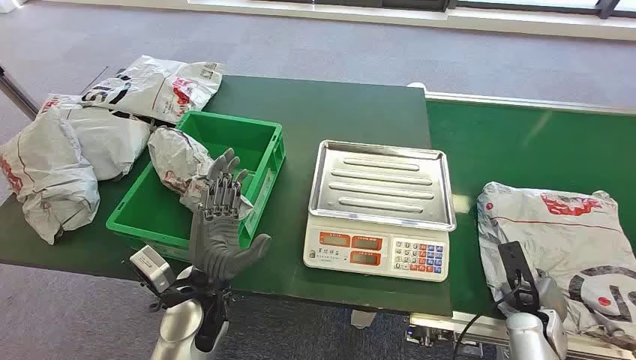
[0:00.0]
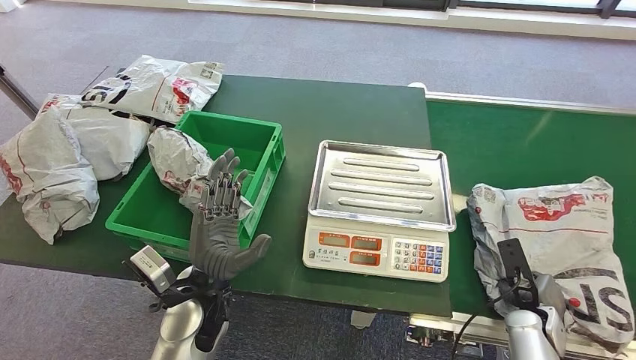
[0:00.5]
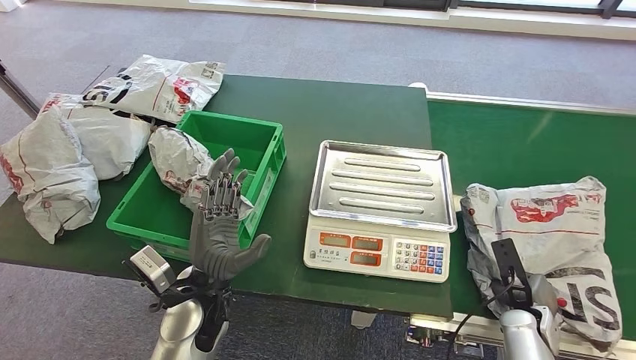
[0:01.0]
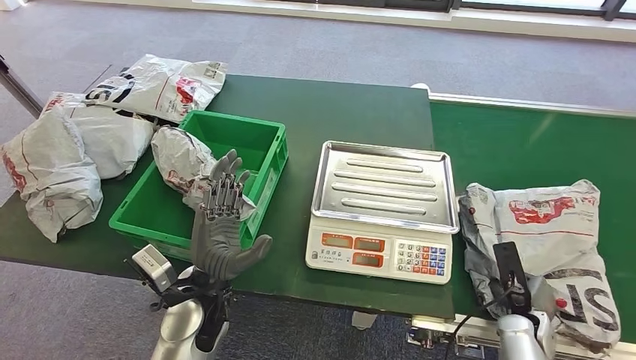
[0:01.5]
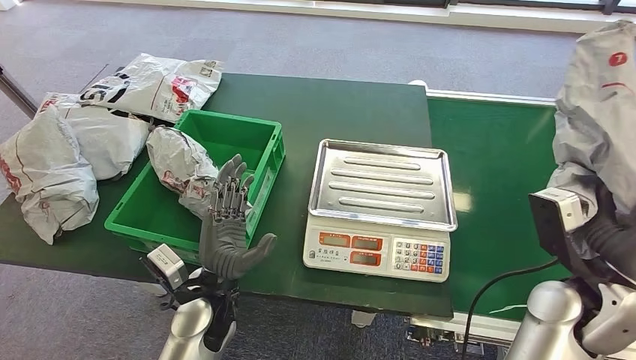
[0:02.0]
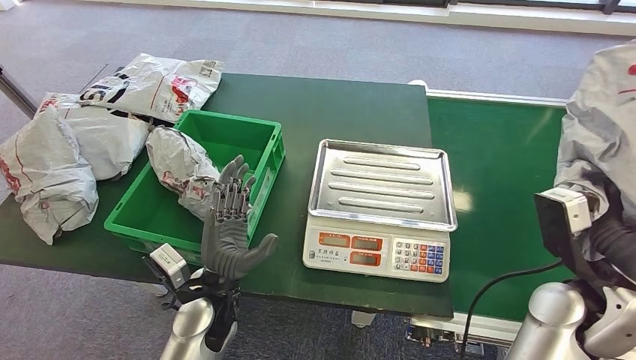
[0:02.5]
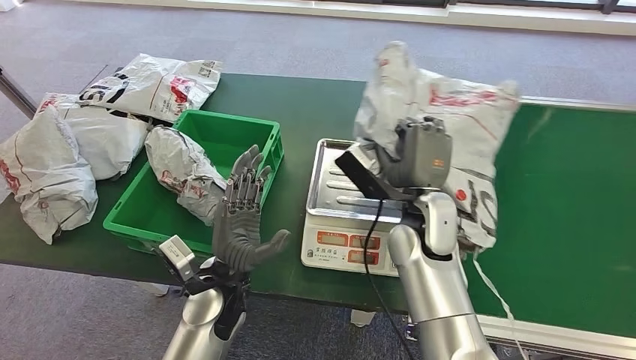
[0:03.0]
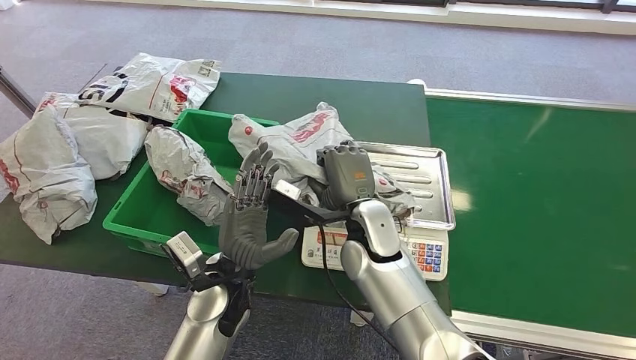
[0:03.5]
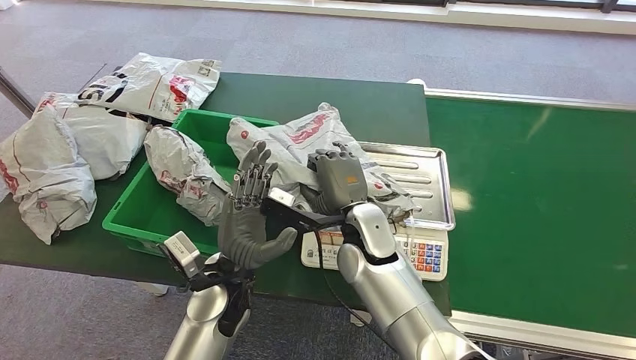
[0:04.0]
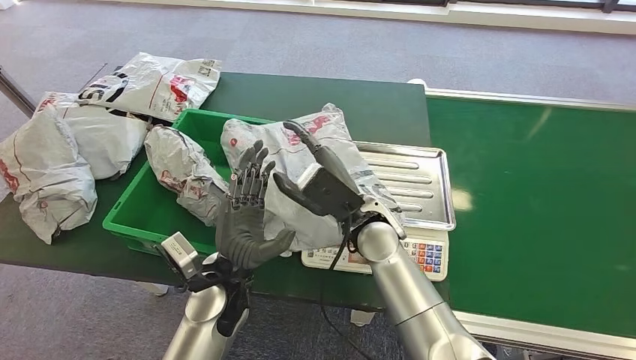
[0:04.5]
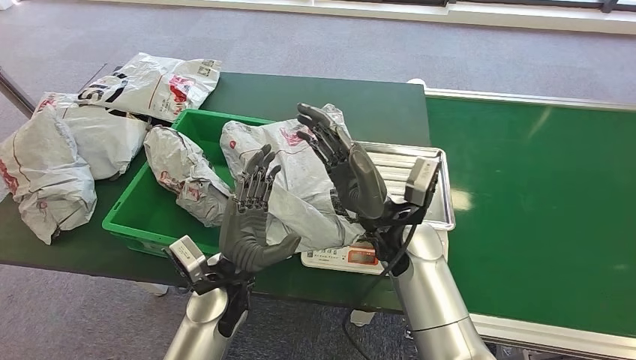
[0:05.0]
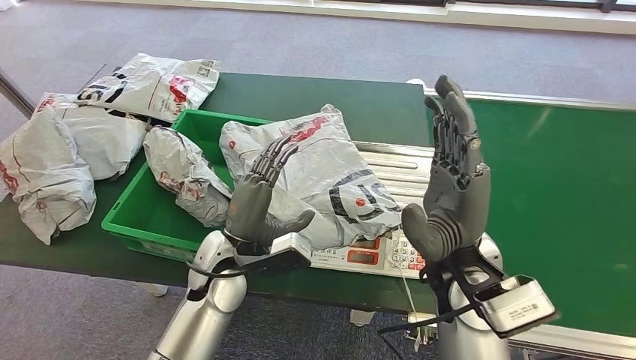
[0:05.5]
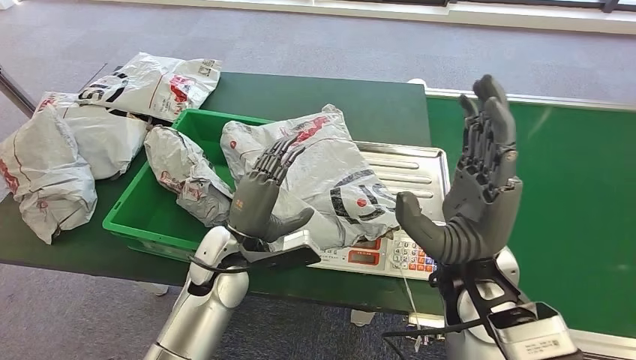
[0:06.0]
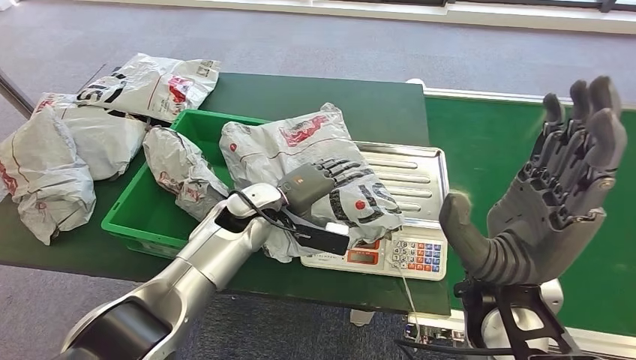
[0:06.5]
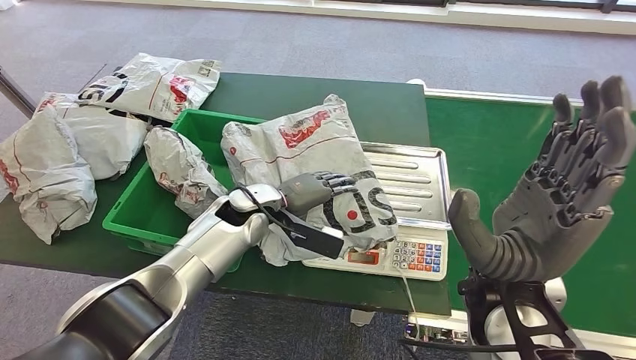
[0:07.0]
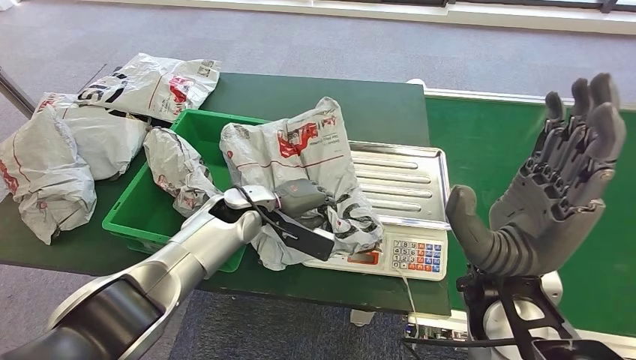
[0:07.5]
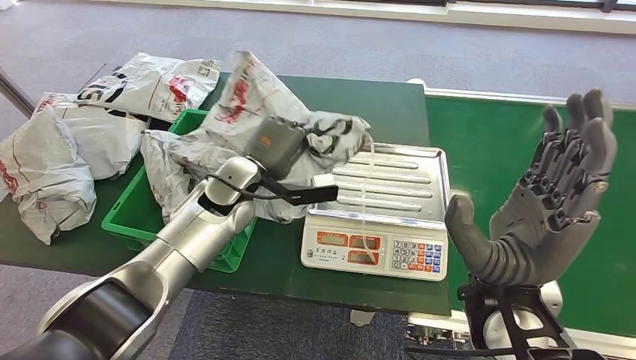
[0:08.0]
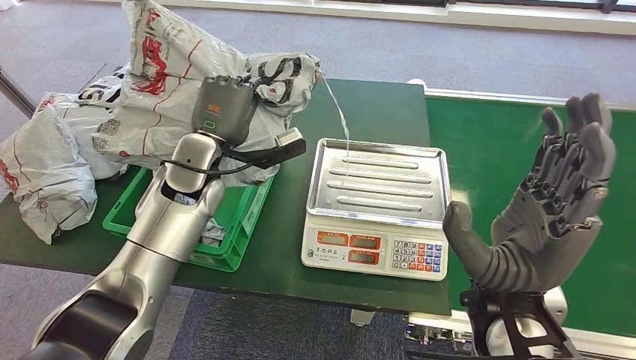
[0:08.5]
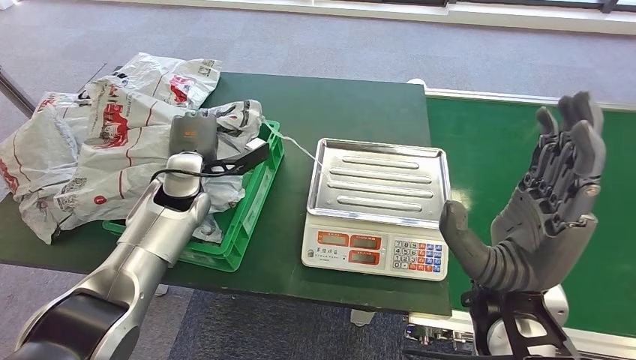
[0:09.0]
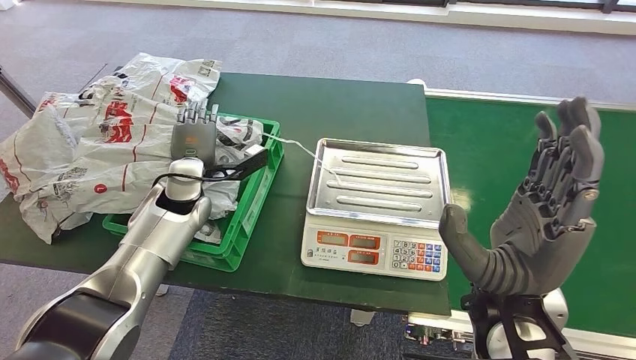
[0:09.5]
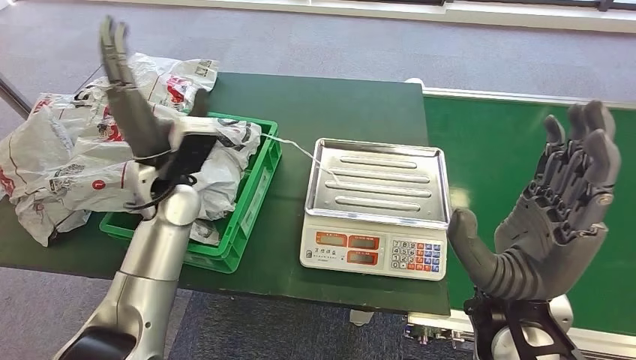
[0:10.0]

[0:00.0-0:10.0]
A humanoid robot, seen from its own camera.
Step, 0:00.0 to 0:02.0: Pick up the package from the conveyor belt.
Step, 0:02.5 to 0:04.0: Place the package onto the inbound machine.
Step, 0:04.5 to 0:08.0: Pick up the package from the inbound machine.
Step, 0:09.0 to 0:10.0: Place the package into the parcel locker.
